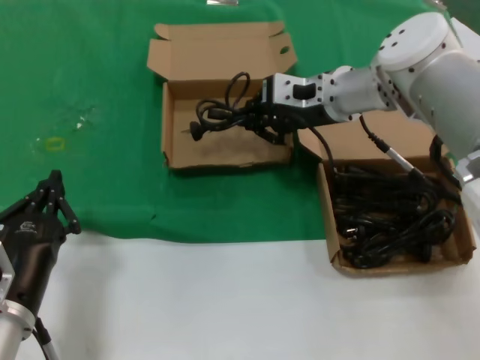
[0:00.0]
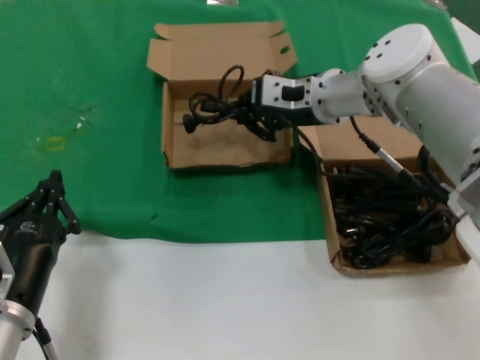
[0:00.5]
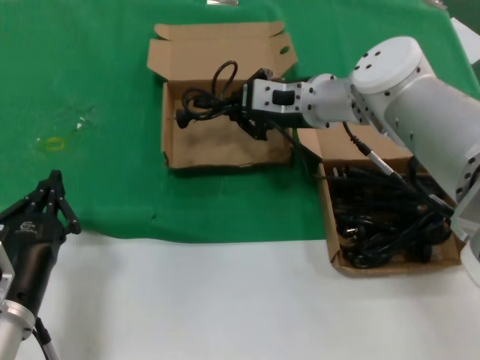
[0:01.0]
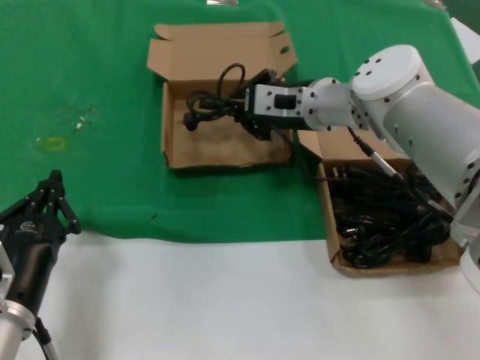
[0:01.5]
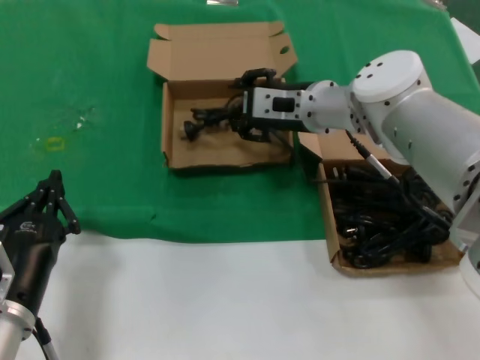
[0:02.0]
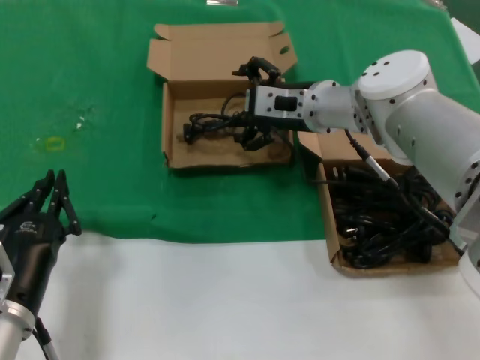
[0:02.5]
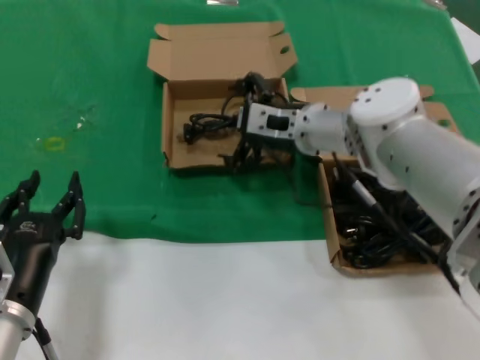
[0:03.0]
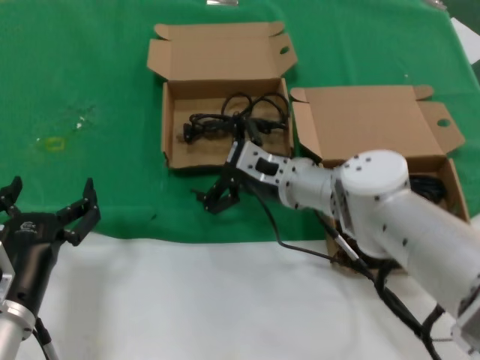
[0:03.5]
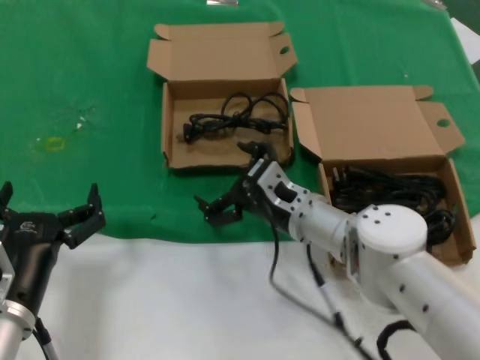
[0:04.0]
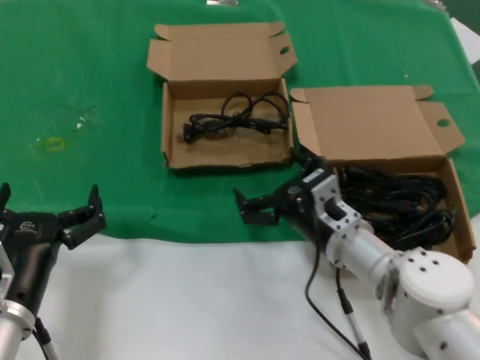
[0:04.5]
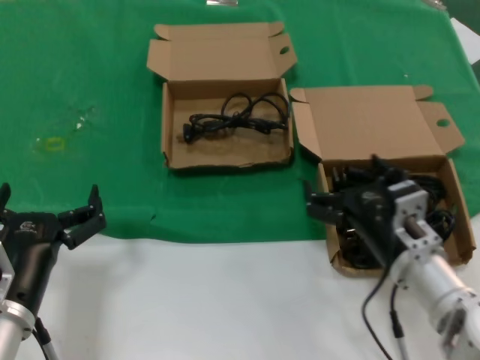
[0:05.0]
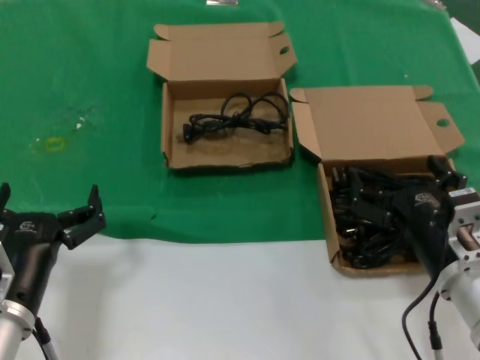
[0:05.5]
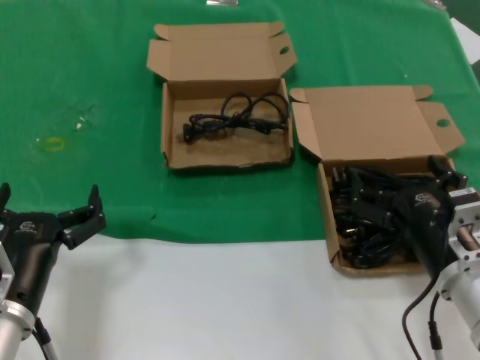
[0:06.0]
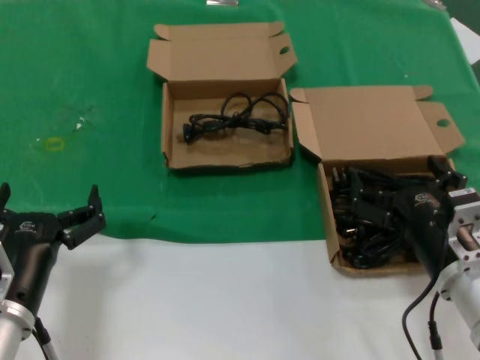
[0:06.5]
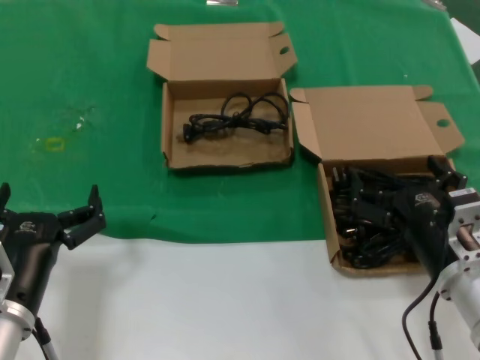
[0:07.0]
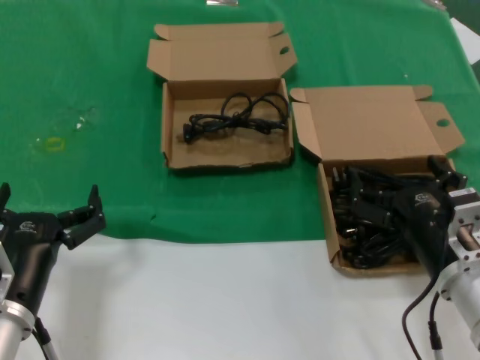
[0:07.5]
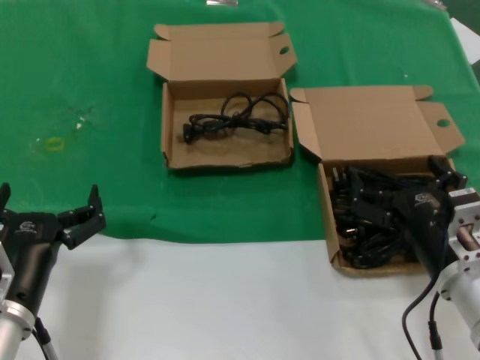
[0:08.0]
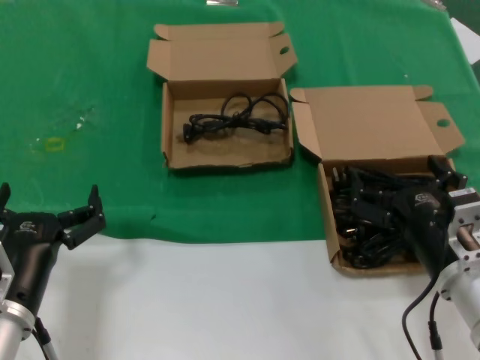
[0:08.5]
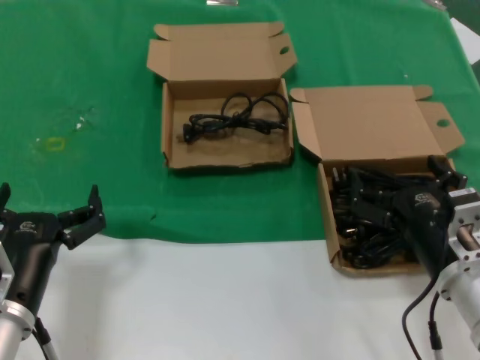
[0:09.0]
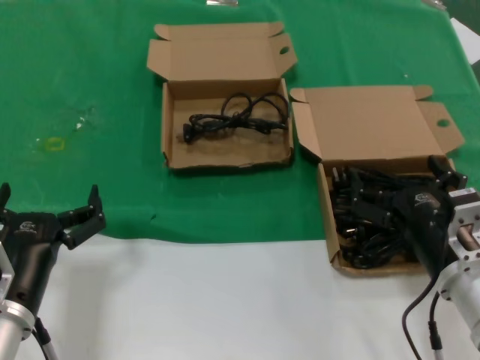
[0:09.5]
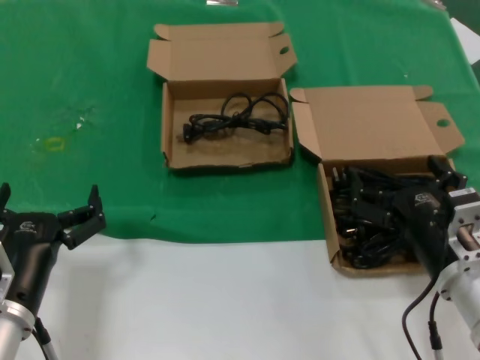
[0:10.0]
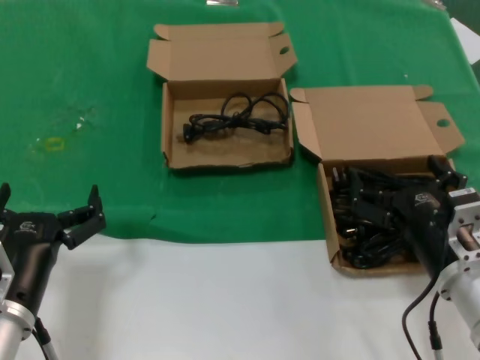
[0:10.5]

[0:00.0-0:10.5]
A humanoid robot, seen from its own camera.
Task of the whole recording: take the parts from the box containing them and put them into an empty box.
Step, 0:00.0 to 0:02.0: Place the data cable in the another box.
0:00.0 to 0:02.0: The hands move only a little.
0:02.0 to 0:04.0: The right hand is displaced downward and backward by approximately 15 cm.
0:04.0 to 0:06.5: The right hand moves backward and to the right, approximately 20 cm.
0:06.5 to 0:10.5: Neither hand changes place.

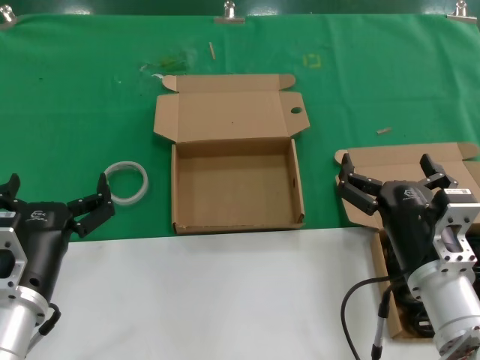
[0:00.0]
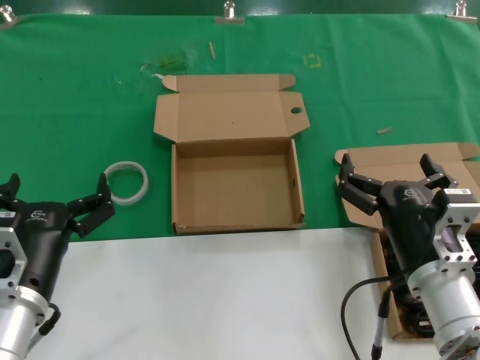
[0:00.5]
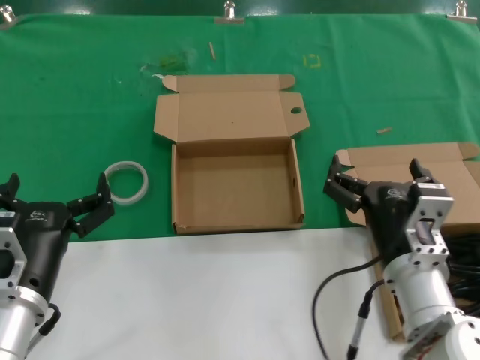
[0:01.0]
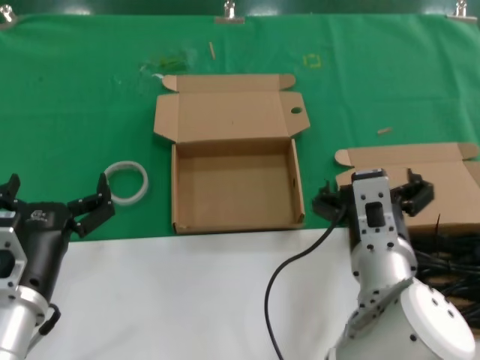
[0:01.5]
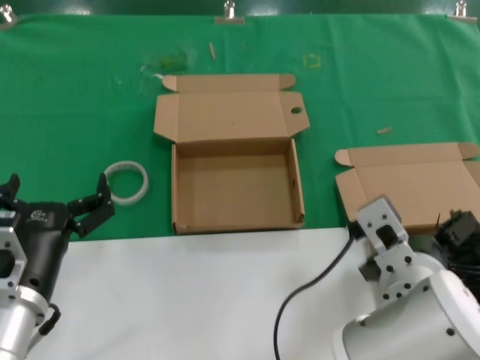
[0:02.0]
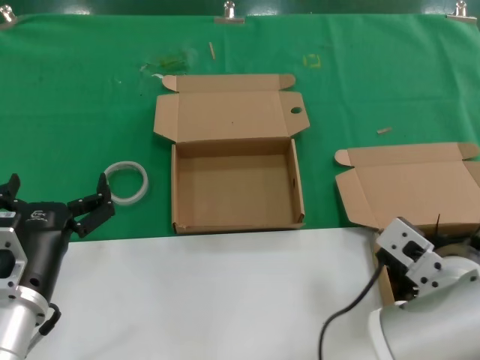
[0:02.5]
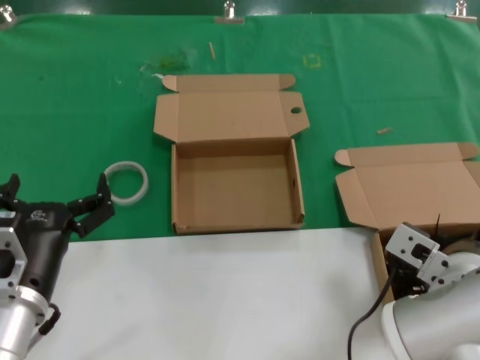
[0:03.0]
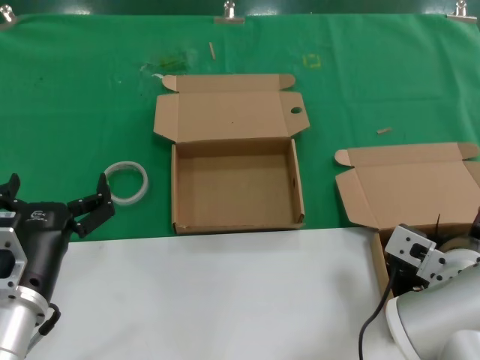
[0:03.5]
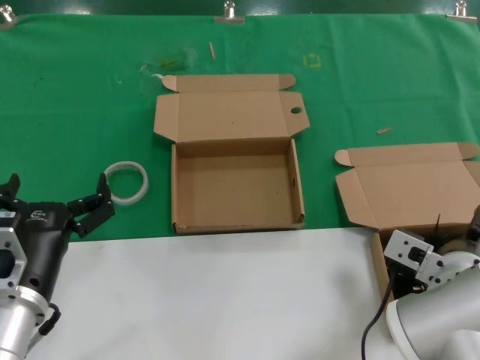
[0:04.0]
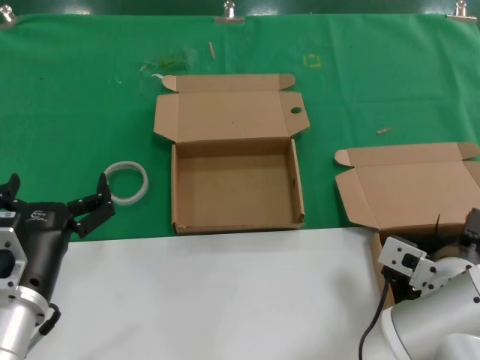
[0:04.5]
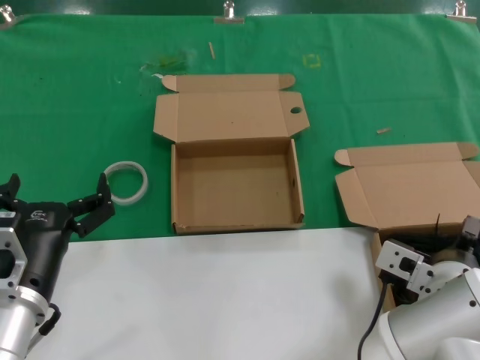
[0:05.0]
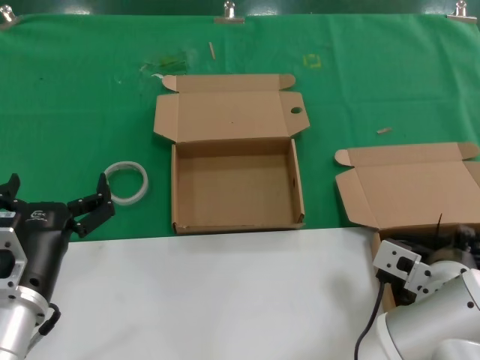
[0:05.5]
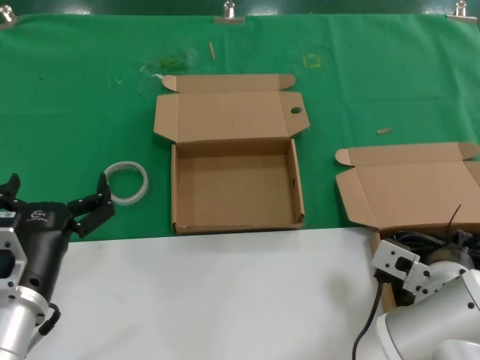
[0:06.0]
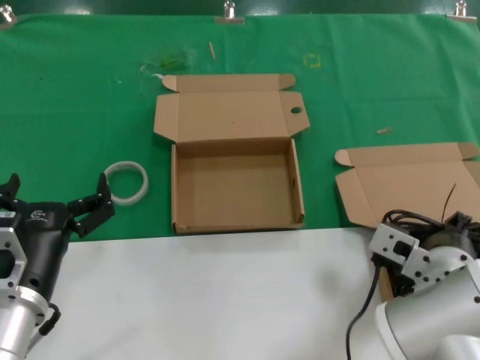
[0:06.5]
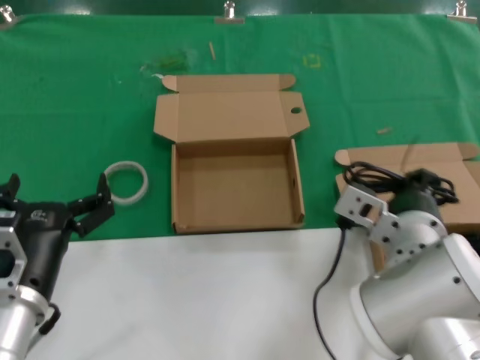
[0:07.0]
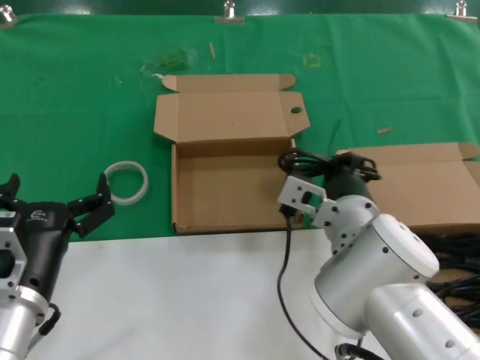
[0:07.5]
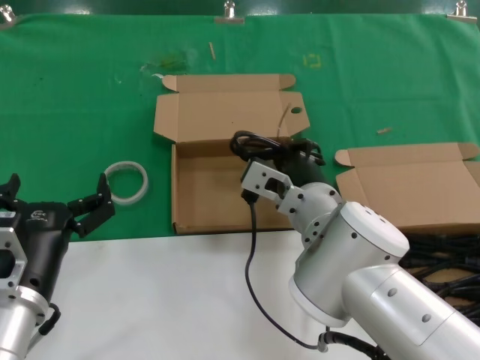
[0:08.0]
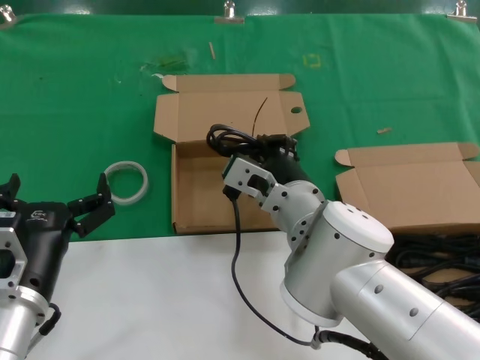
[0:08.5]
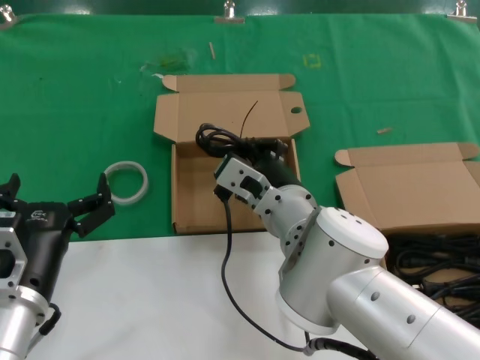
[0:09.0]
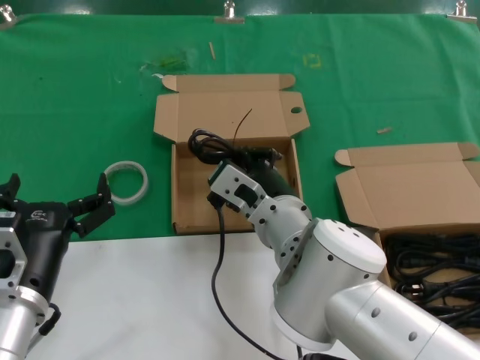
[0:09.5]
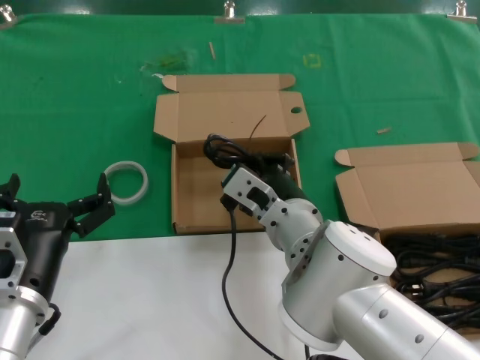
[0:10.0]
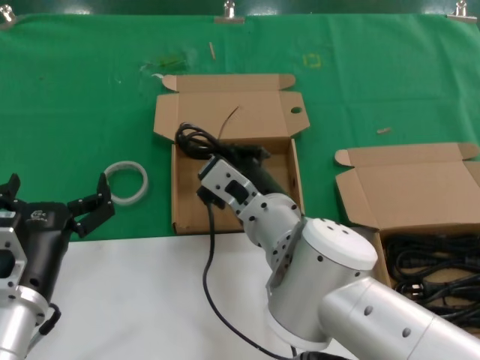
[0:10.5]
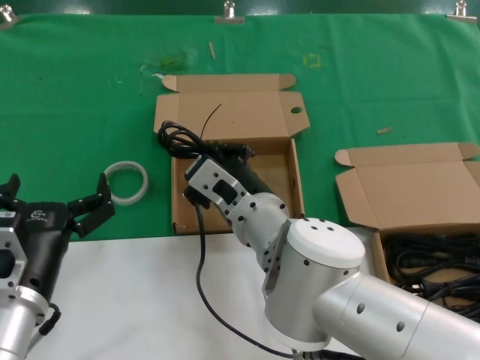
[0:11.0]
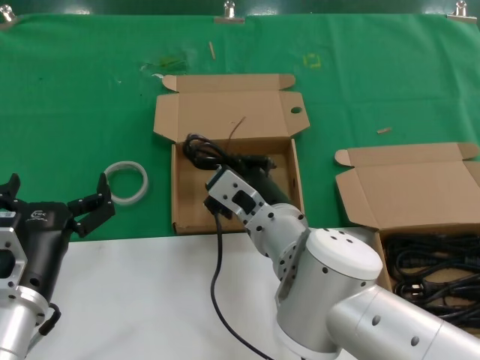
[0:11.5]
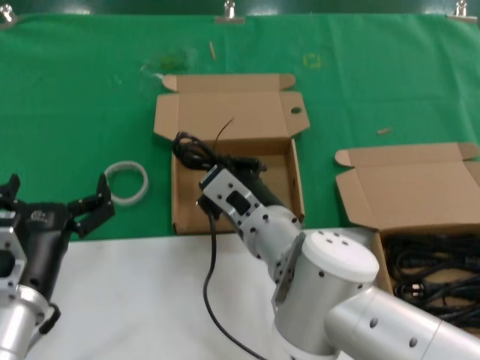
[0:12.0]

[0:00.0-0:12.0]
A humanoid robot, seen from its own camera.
Task of the whole recording: take the parts from the box containing them and put them into an empty box.
Step, 0:00.0 to 0:06.0: Grasp the data cable.
0:00.0 to 0:02.0: The right hand goes some 10 cm to the left and upward.
0:02.0 to 0:04.0: The right hand shifts roughly 10 cm to the right.
0:04.0 to 0:06.0: The hands stay close to where they were, moving slightly.
0:06.0 to 0:08.0: The right hand travels to the left and forward by some 15 cm.
0:08.0 to 0:10.0: There are only small adjustments of the hands.
0:10.0 to 0:12.0: The hands stay close to where they were, moving slightly.

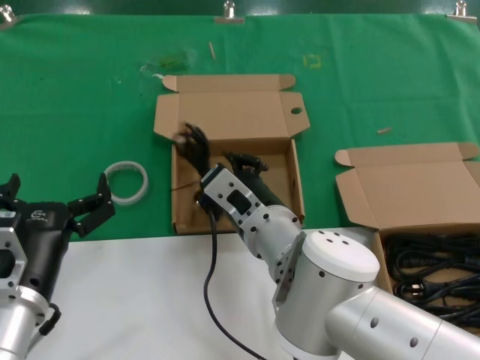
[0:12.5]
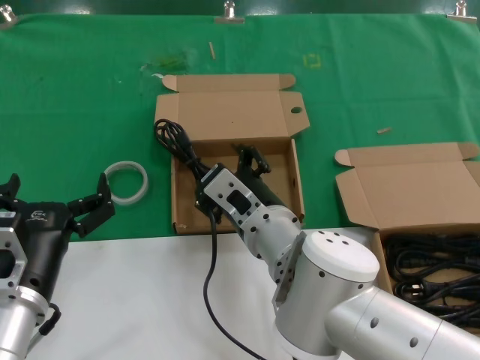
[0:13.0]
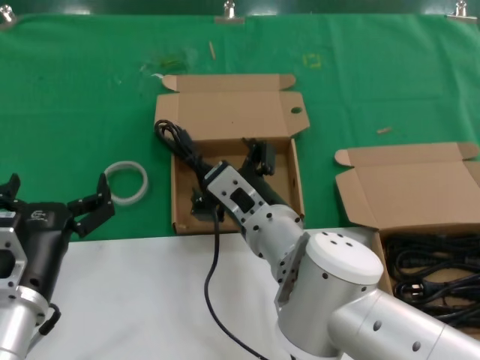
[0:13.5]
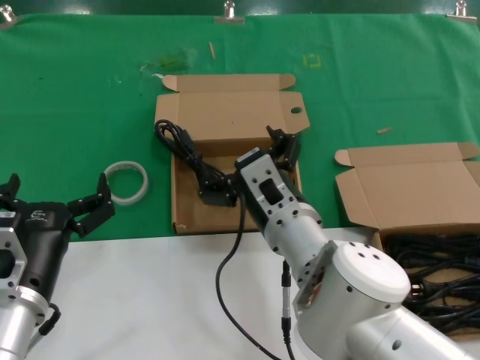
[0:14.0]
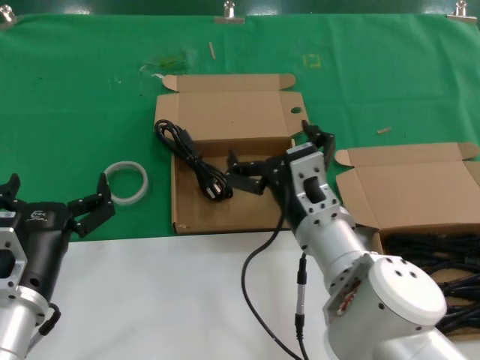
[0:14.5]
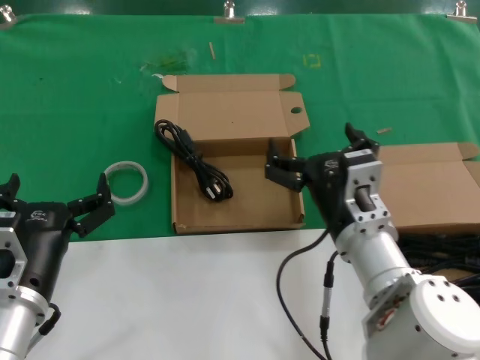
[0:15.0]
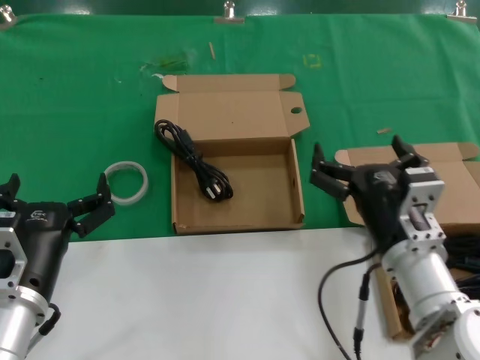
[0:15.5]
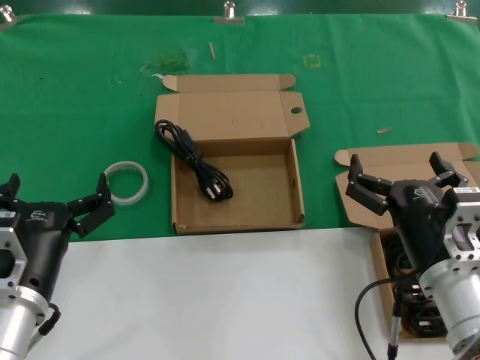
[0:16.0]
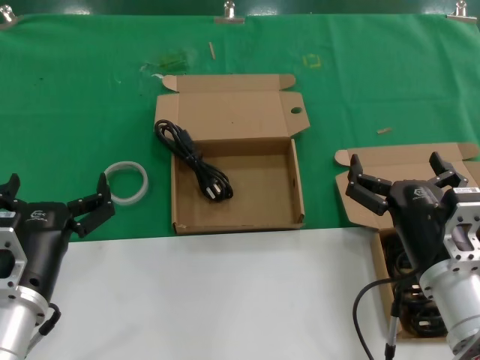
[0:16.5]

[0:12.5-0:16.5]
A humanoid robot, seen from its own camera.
Task of the whole recording: take the parts from the box containing them and put them into an empty box.
0:12.5 to 0:14.5: The right hand shifts approximately 5 cm to the right.
0:14.5 to 0:16.5: The right hand is displaced to the right and backward by roughly 15 cm.
